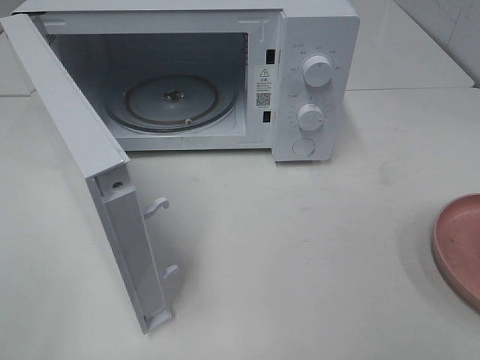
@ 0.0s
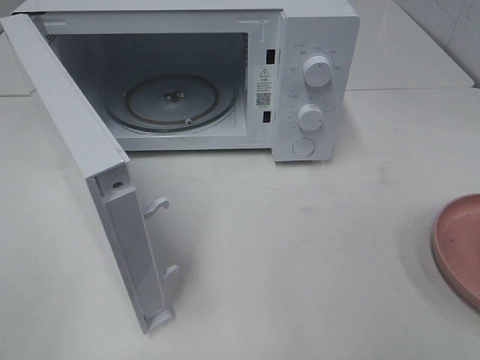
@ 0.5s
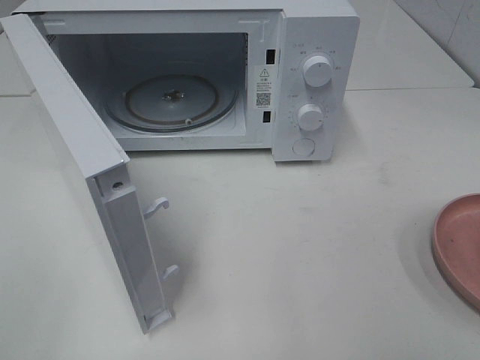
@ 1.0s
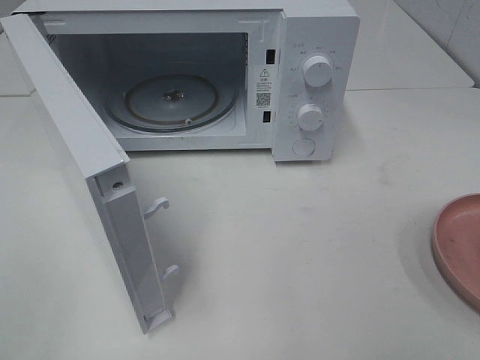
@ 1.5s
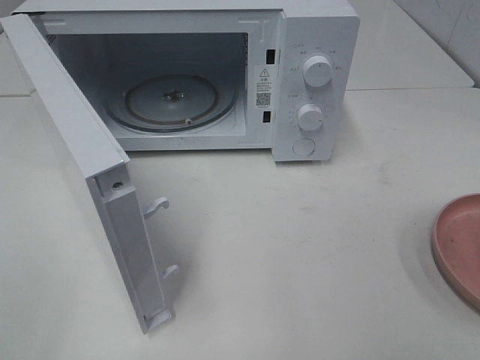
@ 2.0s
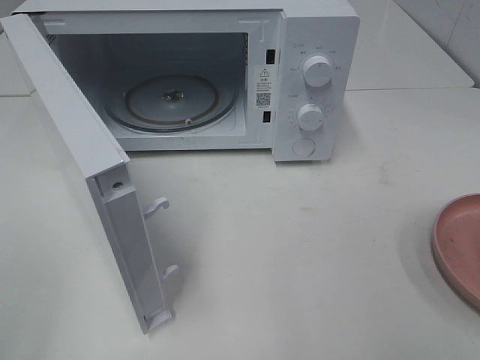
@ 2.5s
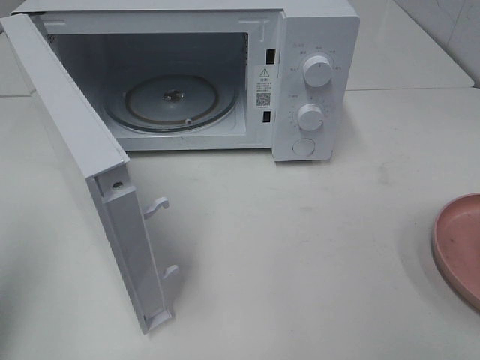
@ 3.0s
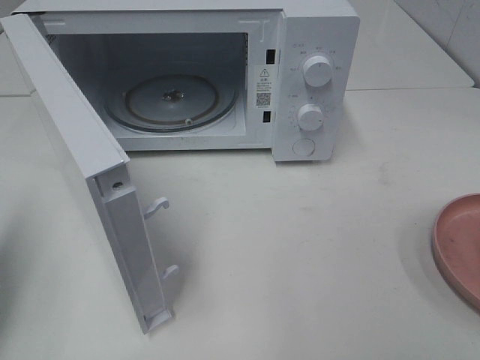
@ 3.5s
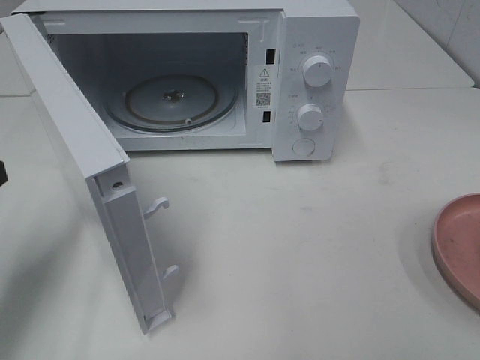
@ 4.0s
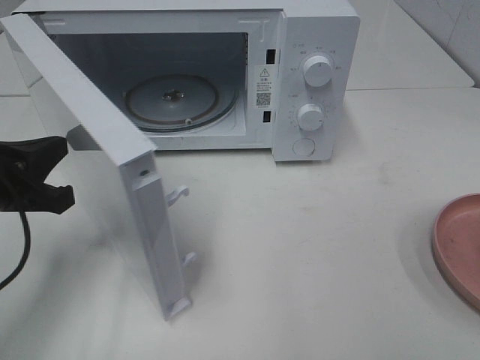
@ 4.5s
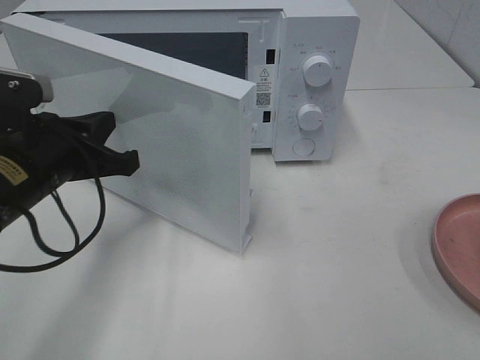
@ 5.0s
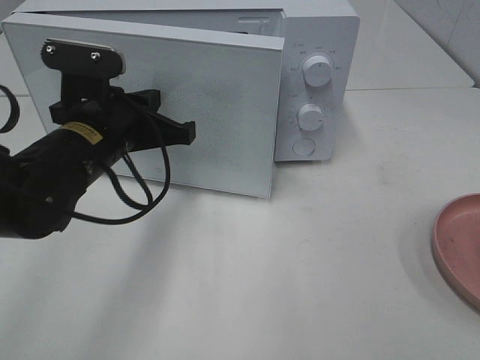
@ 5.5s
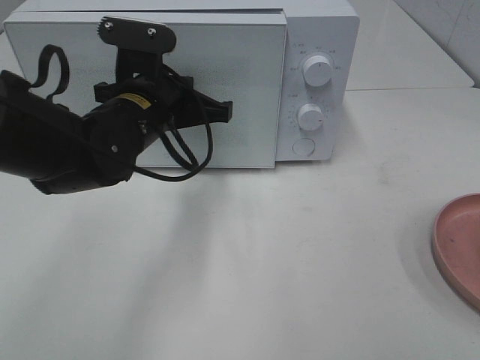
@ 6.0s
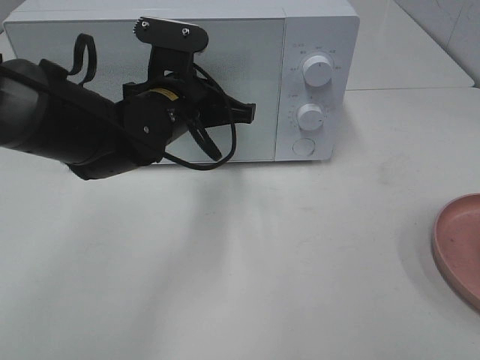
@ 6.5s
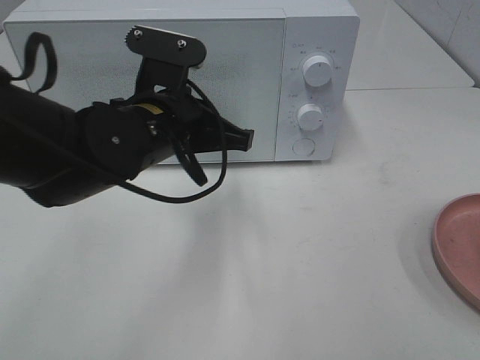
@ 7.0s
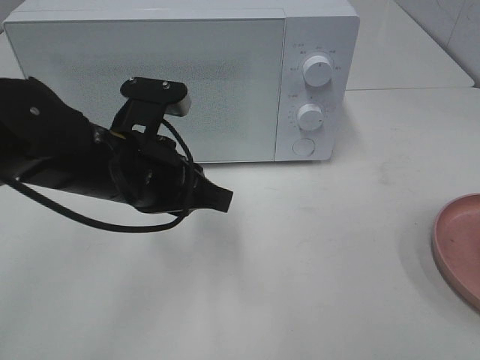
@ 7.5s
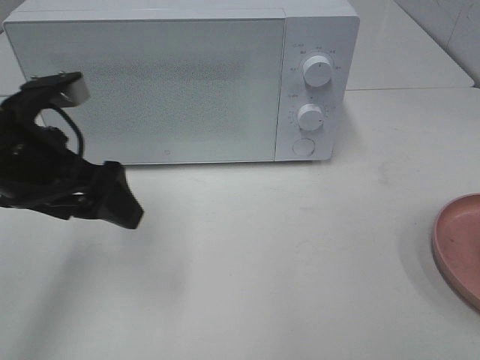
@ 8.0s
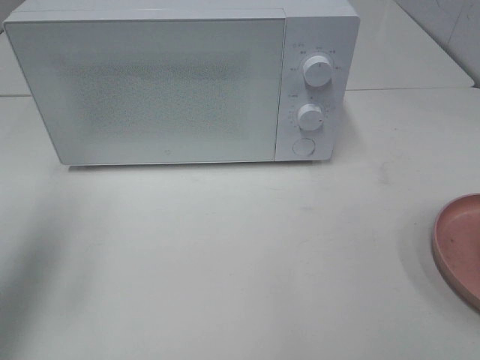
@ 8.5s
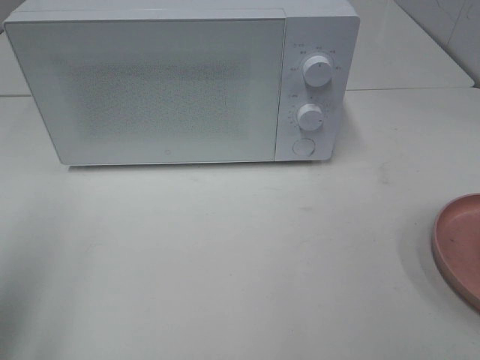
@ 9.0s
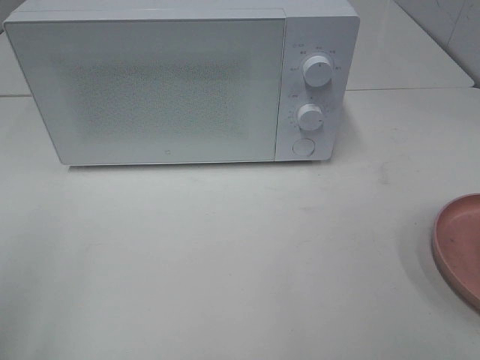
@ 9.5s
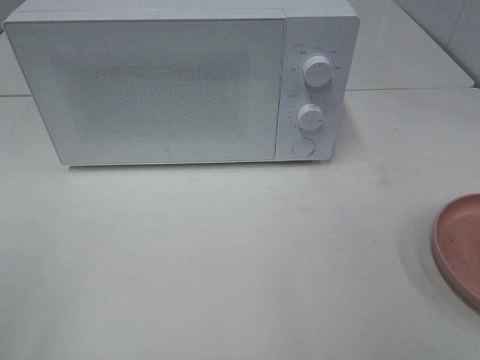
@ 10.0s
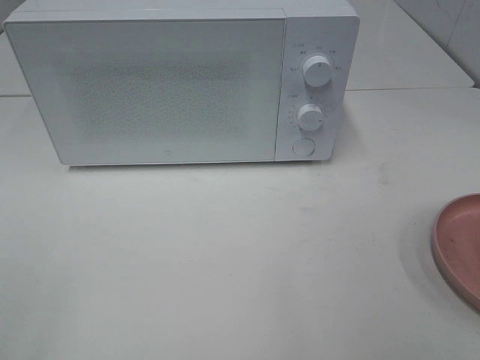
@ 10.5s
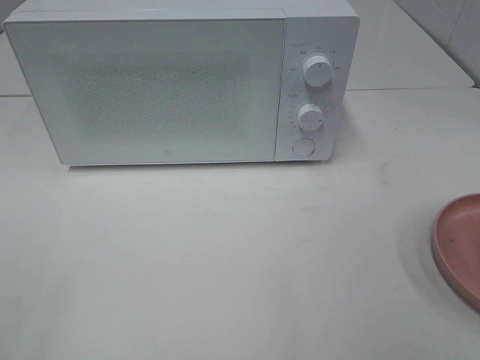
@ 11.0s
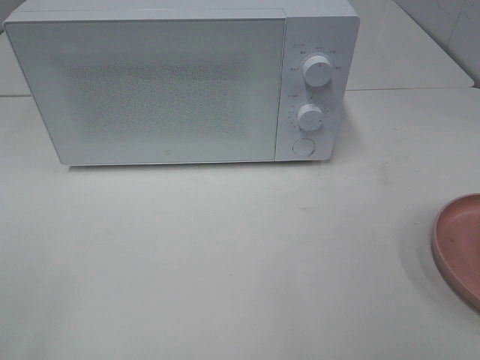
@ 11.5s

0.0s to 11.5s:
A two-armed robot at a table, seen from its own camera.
Task of the whole recording: Heat the burger.
Step, 0.0s to 7.0s: Left hand: close the microwave door.
2.0s to 4.0s: The left gripper is displaced forward and downward by roughly 20 cm, and closes.
4.0s to 6.0s: The left gripper shifts approximately 25 cm to the right and forward.
6.0s to 7.5s: The left gripper travels backward by roughly 10 cm.
7.5s to 9.5s: The left gripper goes approximately 30 cm to the left, backward and upward, and opens up.

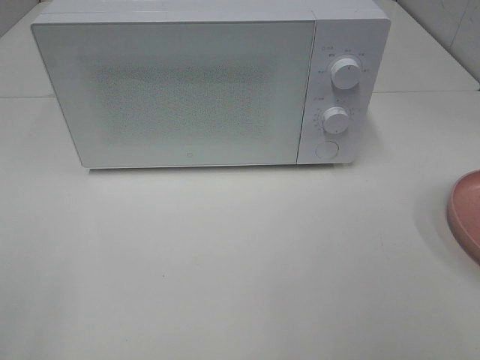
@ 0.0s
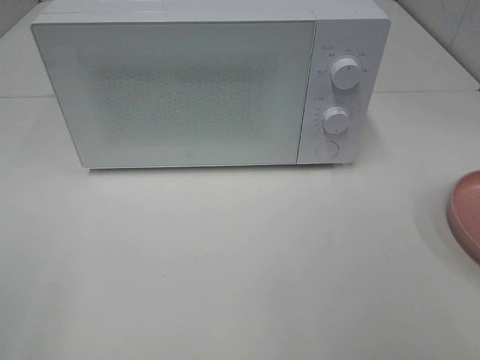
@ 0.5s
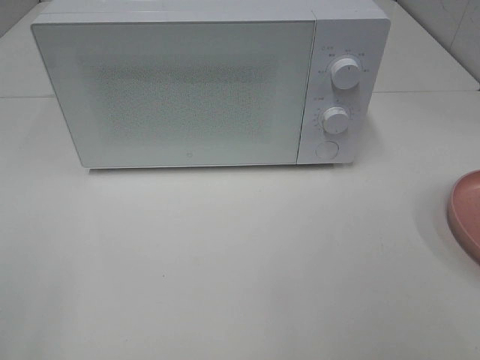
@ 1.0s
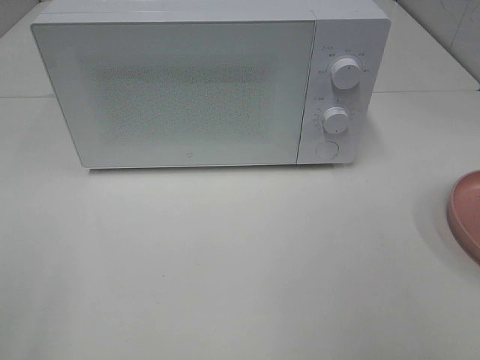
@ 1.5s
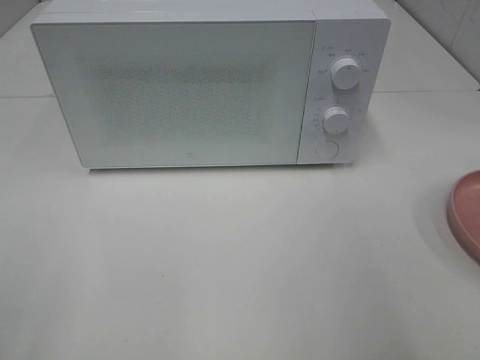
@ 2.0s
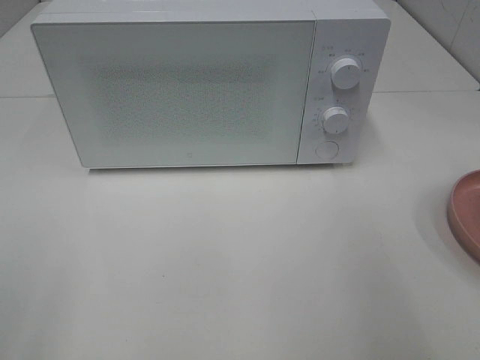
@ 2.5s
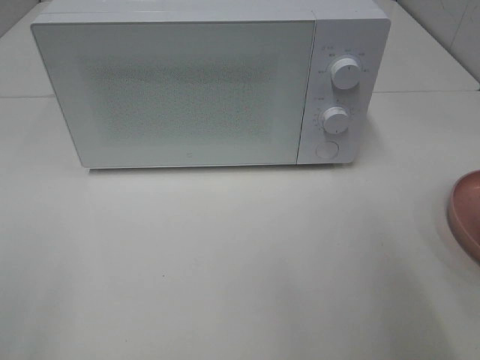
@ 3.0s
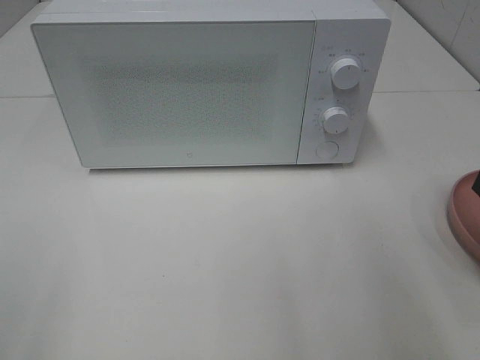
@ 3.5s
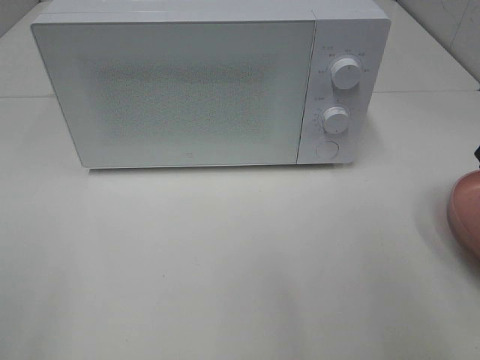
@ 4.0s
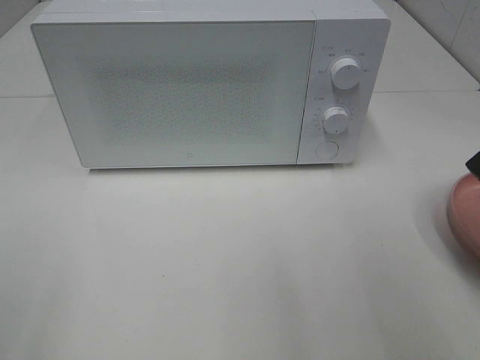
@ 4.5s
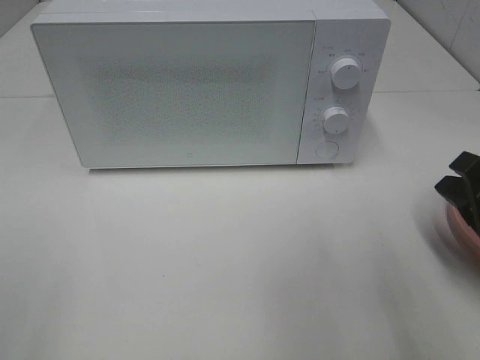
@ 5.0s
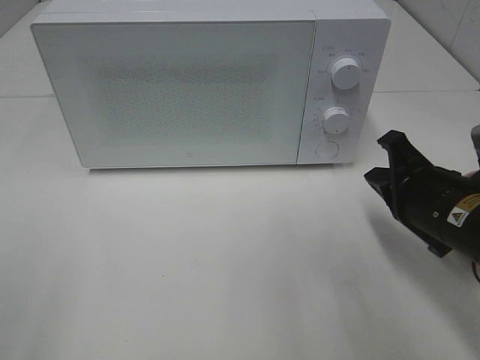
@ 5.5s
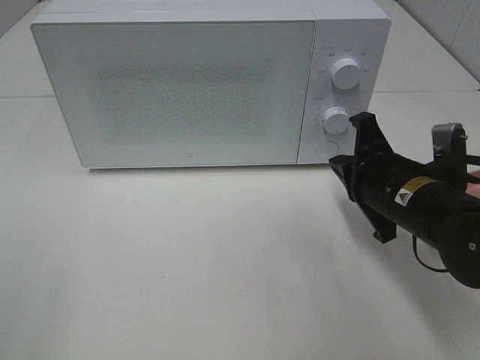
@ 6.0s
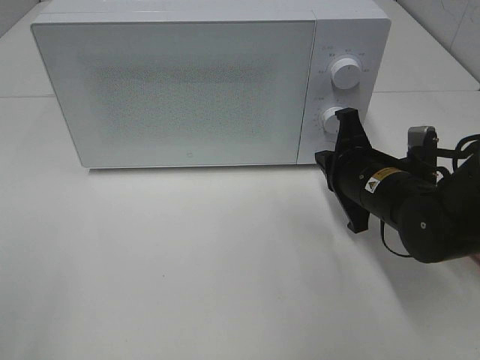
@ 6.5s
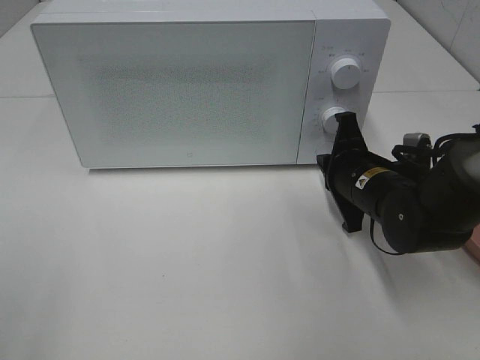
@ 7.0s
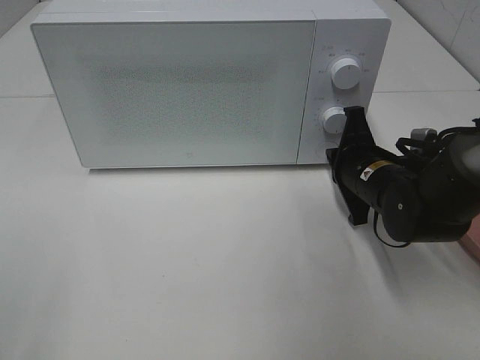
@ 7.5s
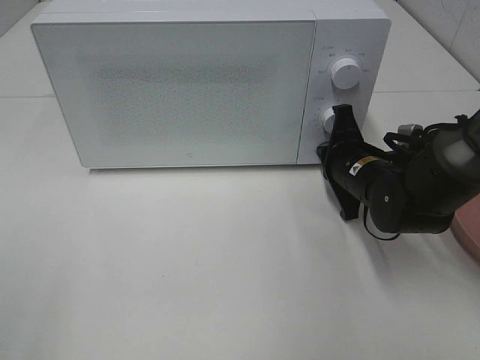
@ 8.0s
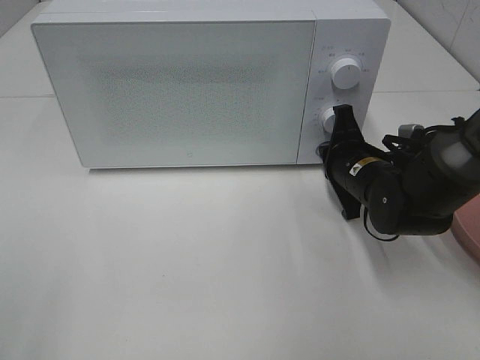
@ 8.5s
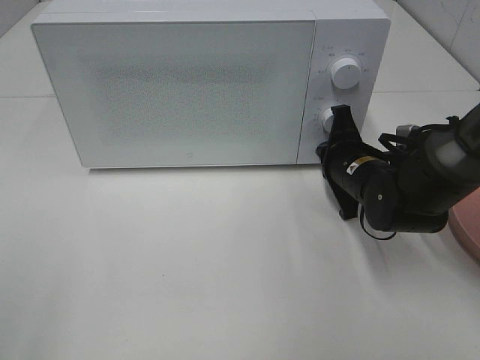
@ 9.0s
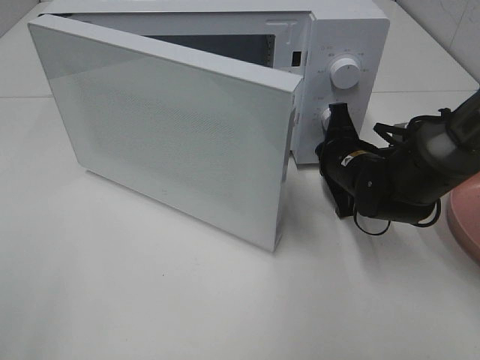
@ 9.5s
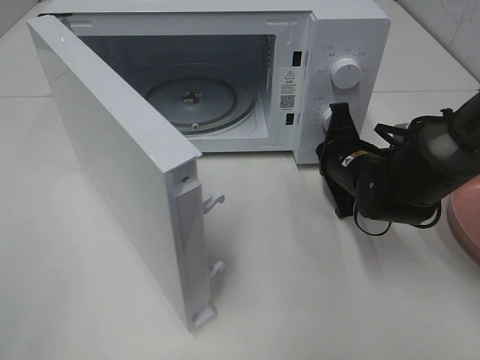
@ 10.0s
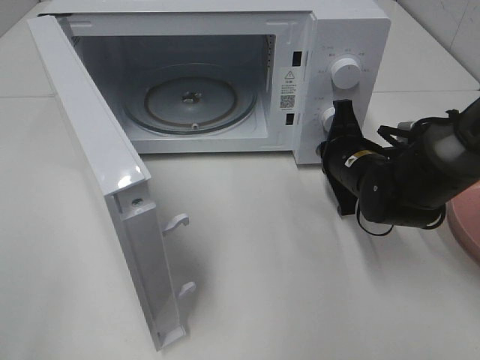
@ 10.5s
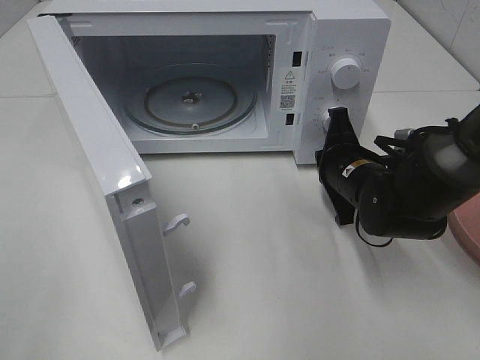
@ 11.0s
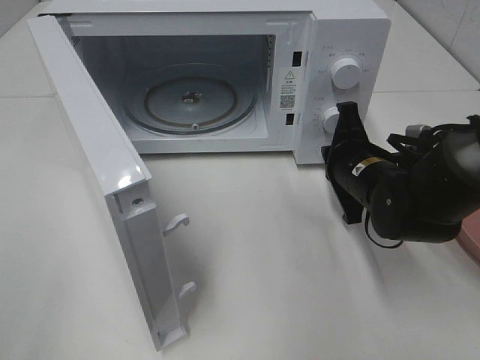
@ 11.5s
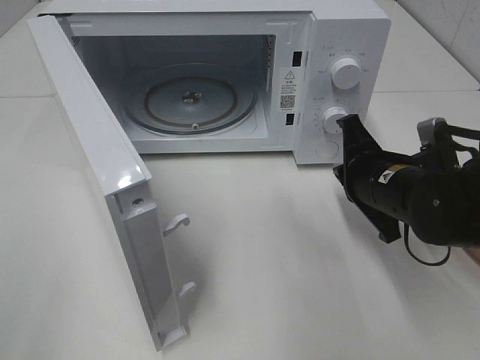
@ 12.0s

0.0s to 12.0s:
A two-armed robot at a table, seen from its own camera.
Task of the whole recording: Heat the burger.
Step, 0.0s to 10.5s: Right hand: press the switch.
4.0s to 6.0s: The right gripper travels forward, to the left and downward by roughly 15 cm.
6.0s to 8.0s: The right gripper travels forward by approximately 10 cm.
10.0s to 12.0s: The right gripper heads backward, covering roughly 5 cm.

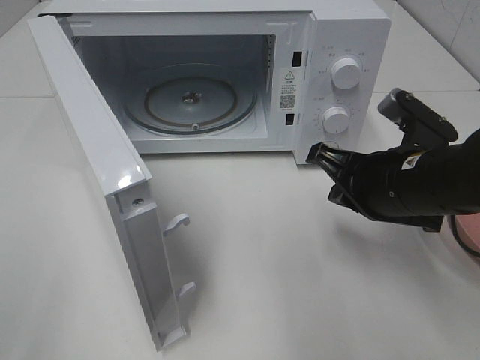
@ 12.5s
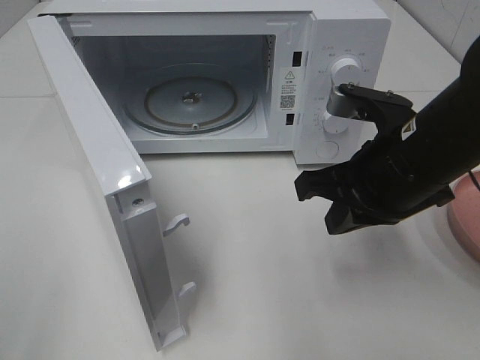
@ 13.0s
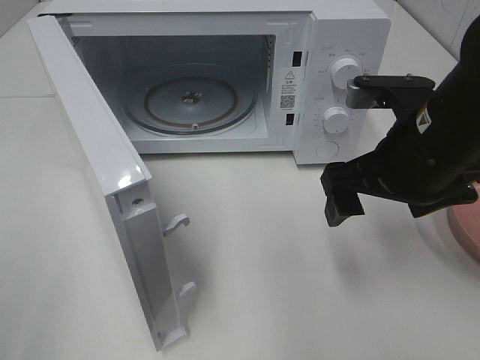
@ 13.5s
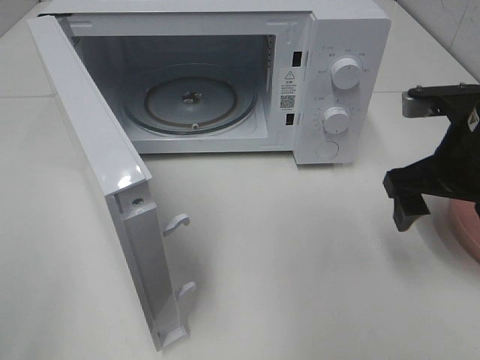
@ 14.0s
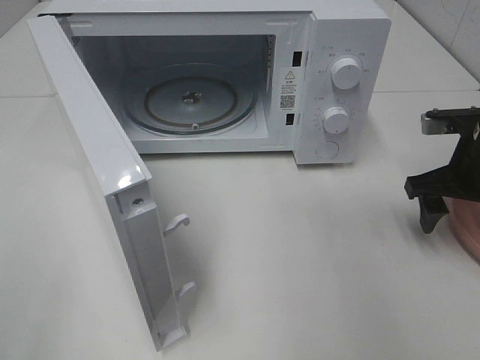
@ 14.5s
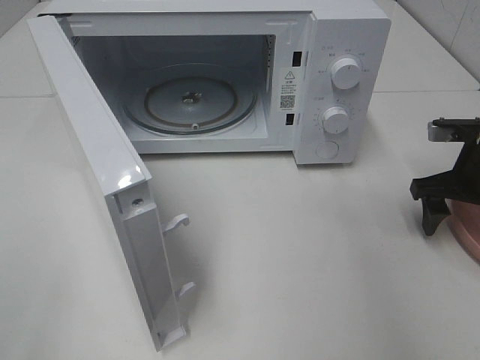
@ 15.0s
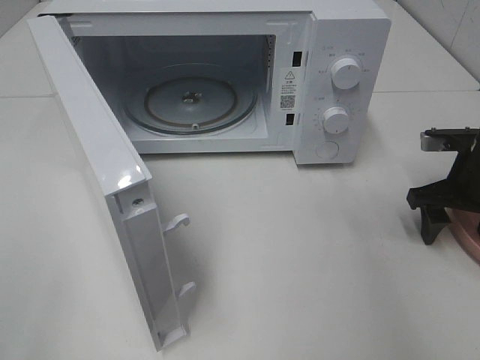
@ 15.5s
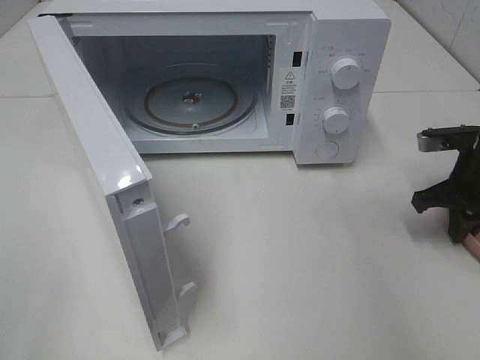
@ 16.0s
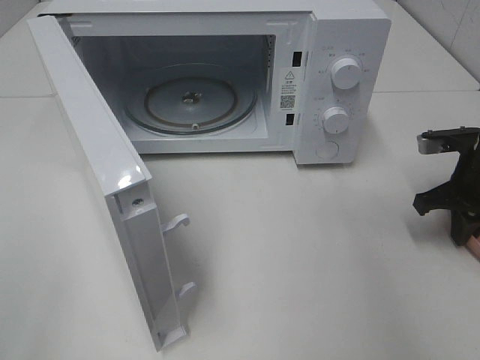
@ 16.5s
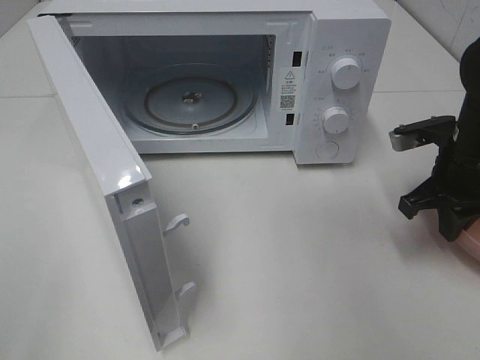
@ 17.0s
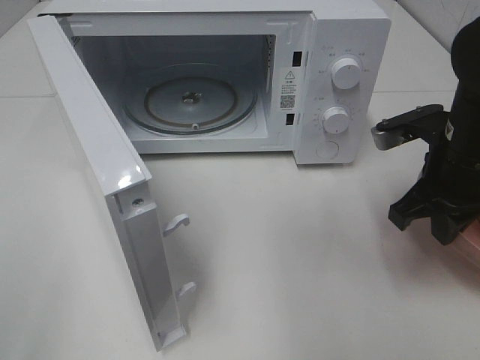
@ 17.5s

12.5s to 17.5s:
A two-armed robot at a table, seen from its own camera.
Task of the whole recording: Heat the burger.
Step, 12.5s to 15.5s: Right hand: grab the plate with the hamburger.
12.5s to 15.0s: The right gripper is displaced to the right and forward by roughly 15 cm, and opens up.
15.0s to 17.5s: The right gripper shifts roughly 10 cm to the left, upward and backward, and closes.
